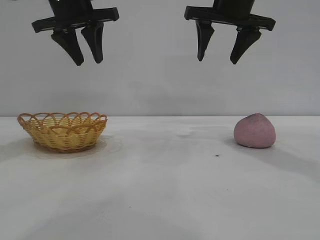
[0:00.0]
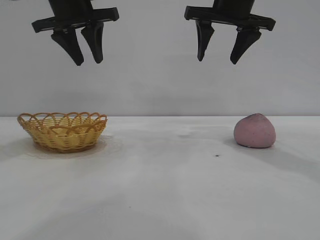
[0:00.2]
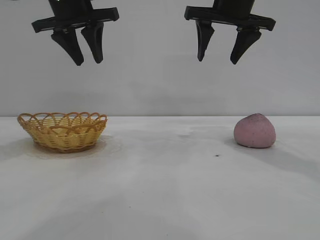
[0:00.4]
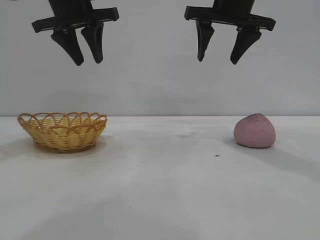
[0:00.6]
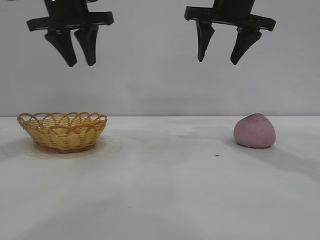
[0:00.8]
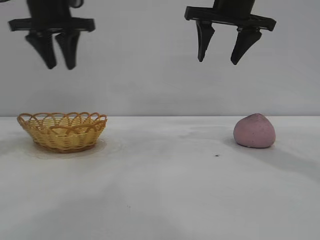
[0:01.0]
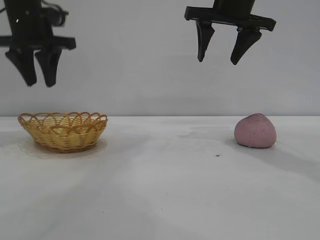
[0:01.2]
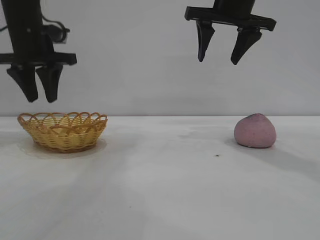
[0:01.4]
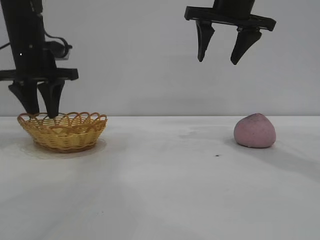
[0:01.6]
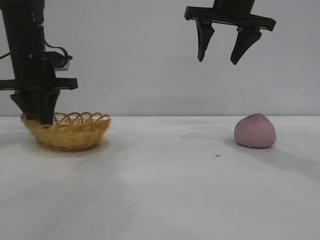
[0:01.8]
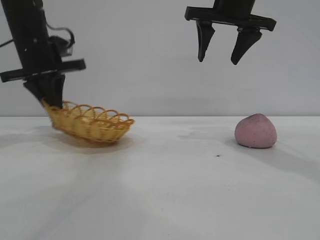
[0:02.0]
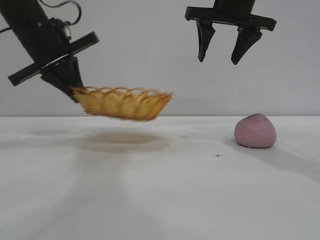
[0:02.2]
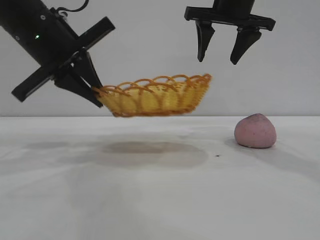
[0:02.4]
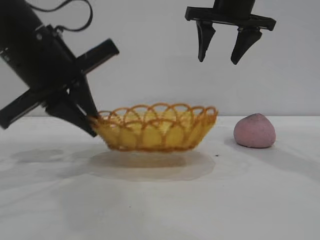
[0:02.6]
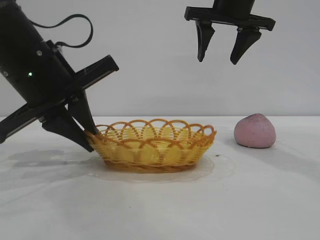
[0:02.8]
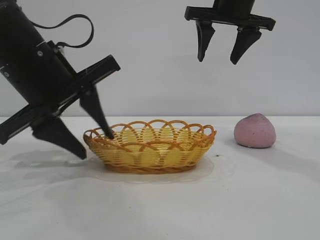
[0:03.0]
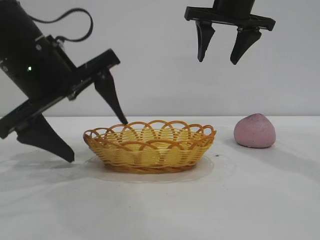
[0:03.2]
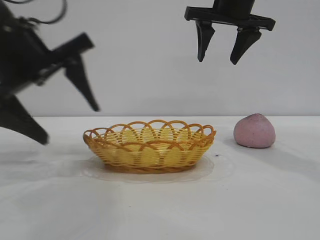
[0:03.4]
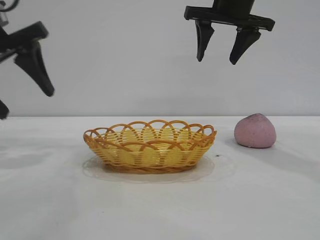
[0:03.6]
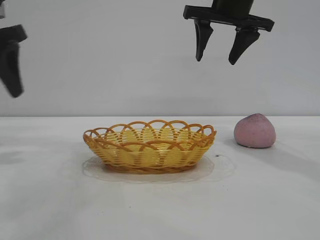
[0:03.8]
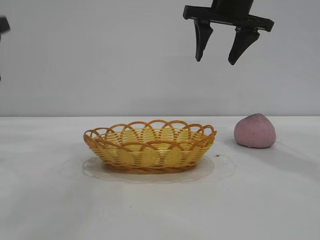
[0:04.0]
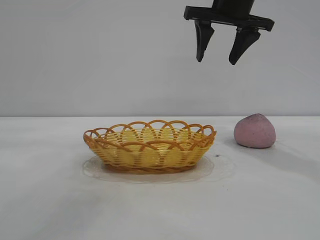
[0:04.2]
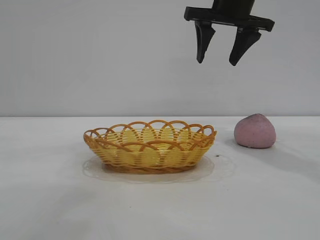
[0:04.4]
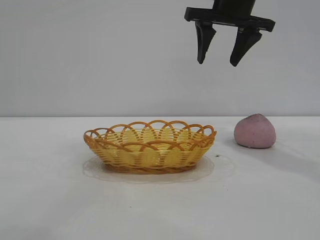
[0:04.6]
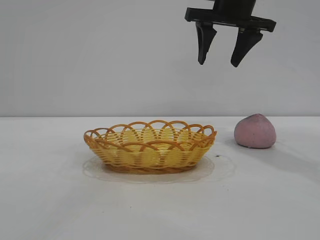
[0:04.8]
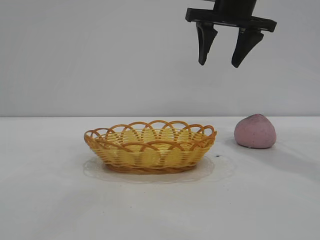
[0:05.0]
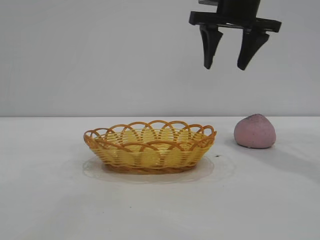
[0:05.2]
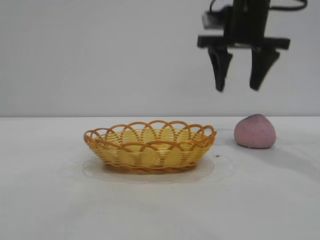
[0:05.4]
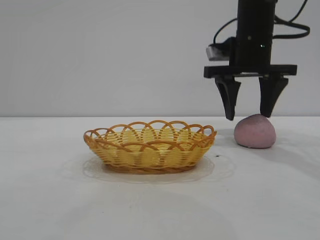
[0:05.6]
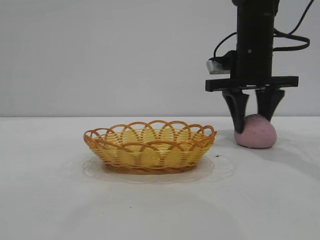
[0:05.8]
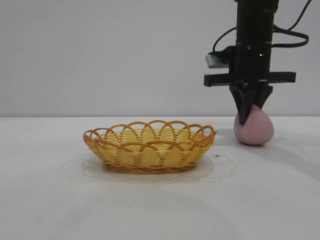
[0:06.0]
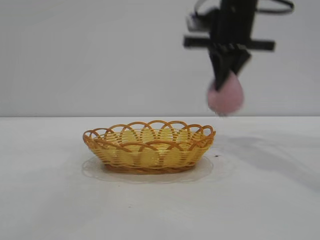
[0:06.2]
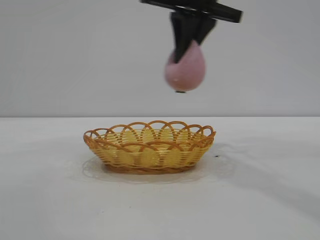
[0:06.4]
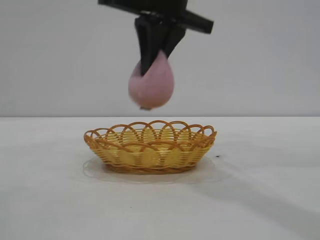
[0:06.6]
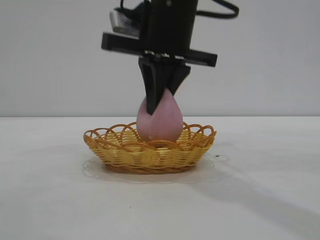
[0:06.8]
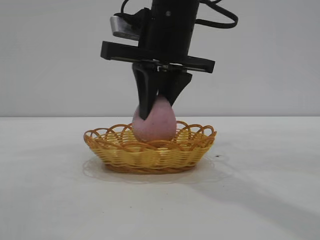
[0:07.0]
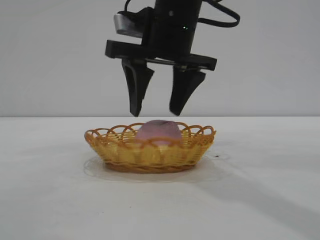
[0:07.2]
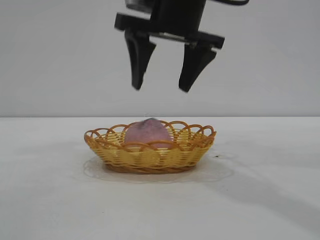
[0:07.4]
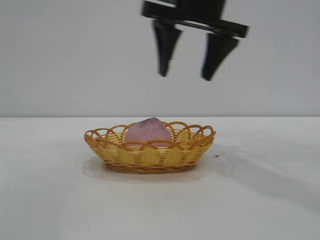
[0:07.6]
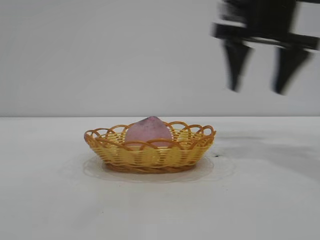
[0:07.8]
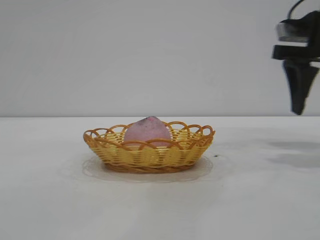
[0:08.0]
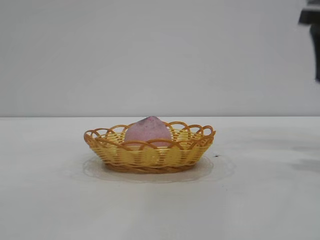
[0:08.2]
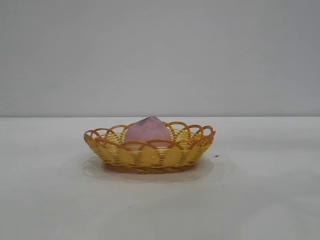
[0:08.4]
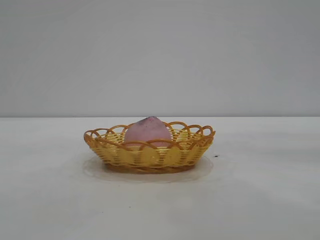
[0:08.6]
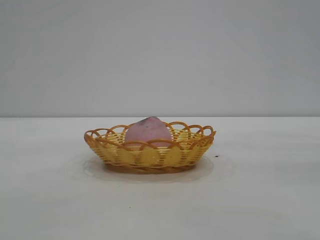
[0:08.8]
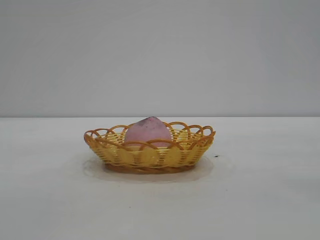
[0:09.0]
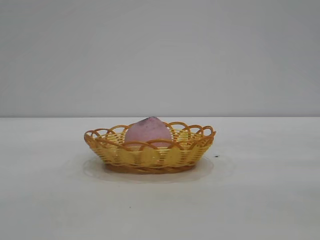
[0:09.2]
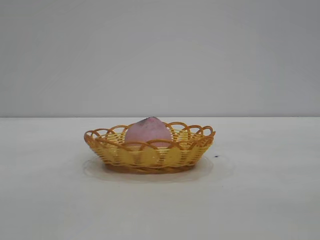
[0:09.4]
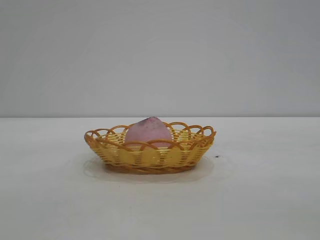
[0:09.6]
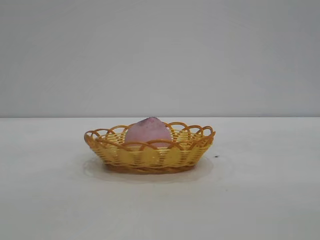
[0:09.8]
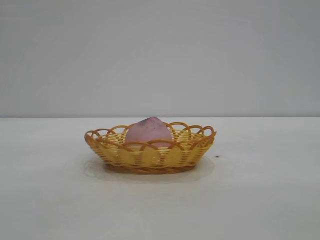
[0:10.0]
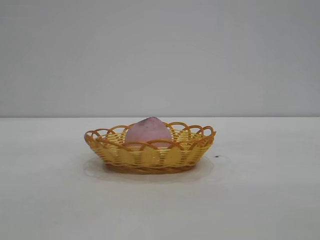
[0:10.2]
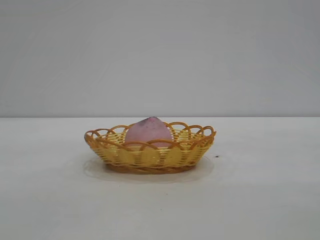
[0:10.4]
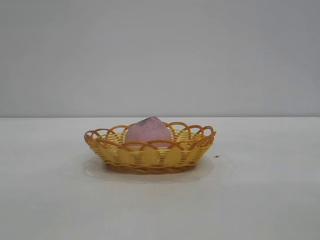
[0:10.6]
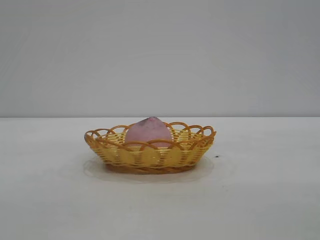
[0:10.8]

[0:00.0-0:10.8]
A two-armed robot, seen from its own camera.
Task of the whole recording: pick up the peach and put it into the basket.
Step, 0:00.0 to 0:03.4: Move the basket to the center of view.
Step, 0:03.6 to 0:06.0: Pick up the peach.
Step, 0:06.2 to 0:07.4: place the peach into the basket.
